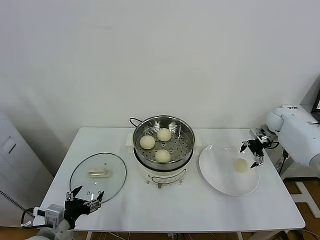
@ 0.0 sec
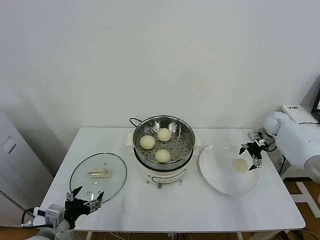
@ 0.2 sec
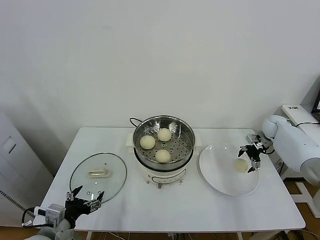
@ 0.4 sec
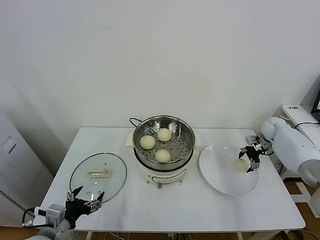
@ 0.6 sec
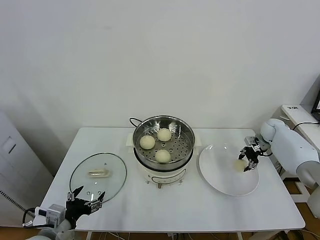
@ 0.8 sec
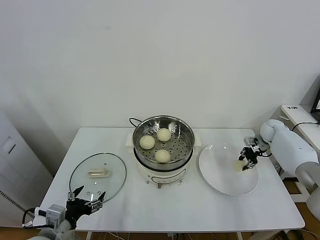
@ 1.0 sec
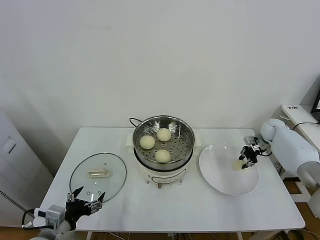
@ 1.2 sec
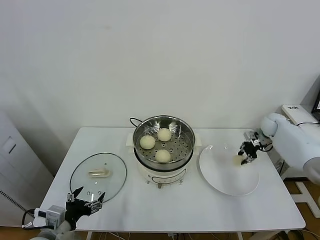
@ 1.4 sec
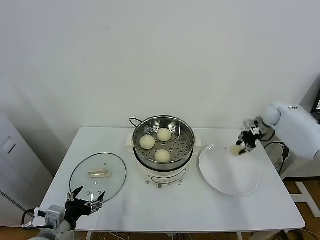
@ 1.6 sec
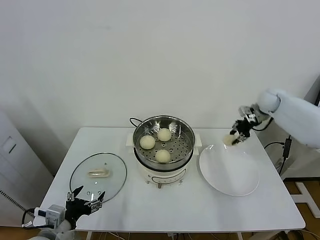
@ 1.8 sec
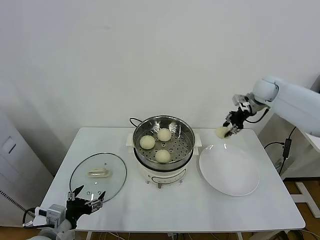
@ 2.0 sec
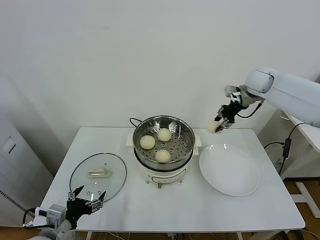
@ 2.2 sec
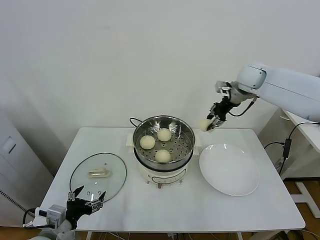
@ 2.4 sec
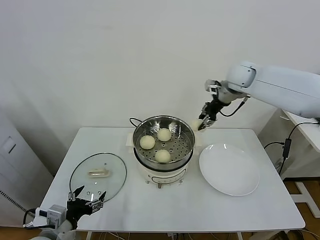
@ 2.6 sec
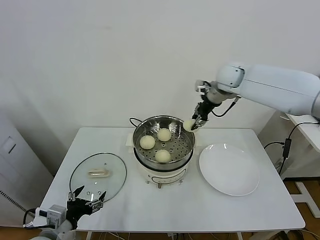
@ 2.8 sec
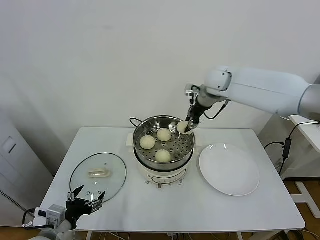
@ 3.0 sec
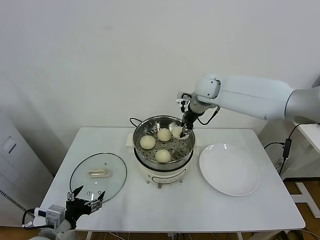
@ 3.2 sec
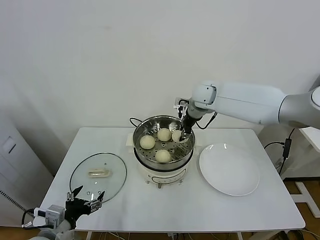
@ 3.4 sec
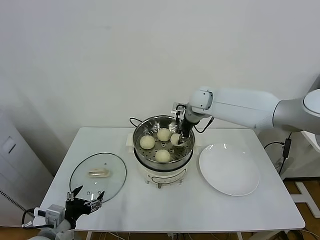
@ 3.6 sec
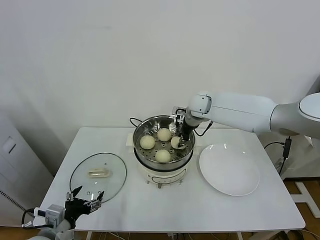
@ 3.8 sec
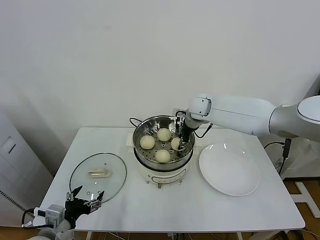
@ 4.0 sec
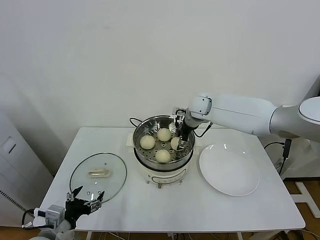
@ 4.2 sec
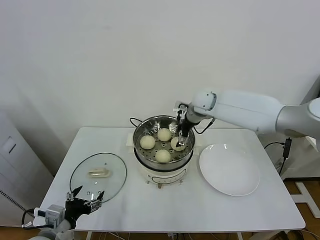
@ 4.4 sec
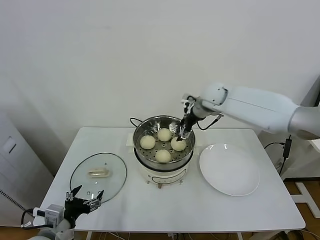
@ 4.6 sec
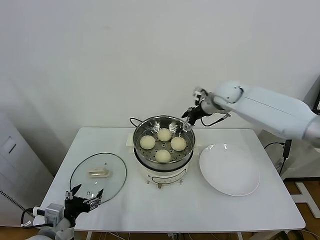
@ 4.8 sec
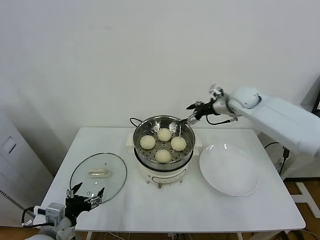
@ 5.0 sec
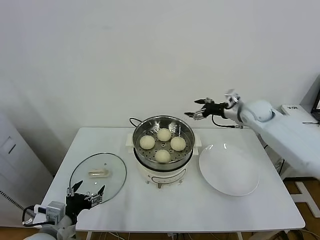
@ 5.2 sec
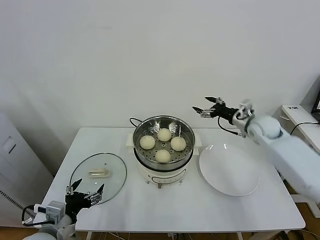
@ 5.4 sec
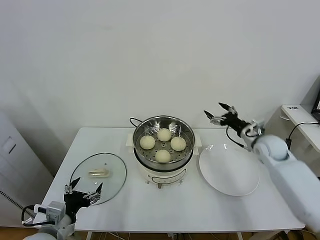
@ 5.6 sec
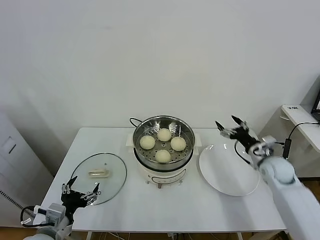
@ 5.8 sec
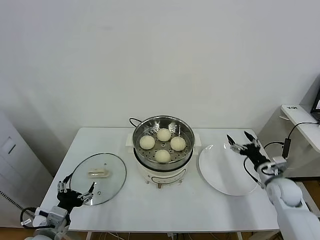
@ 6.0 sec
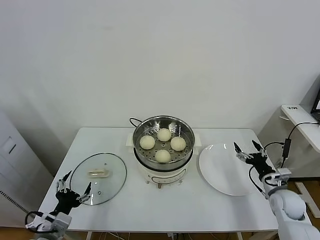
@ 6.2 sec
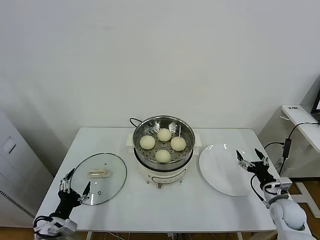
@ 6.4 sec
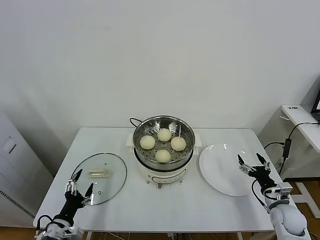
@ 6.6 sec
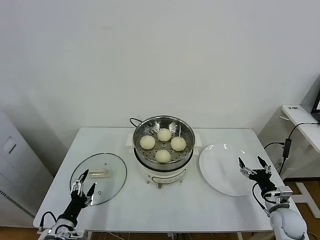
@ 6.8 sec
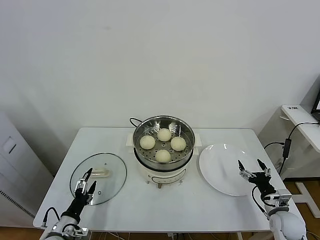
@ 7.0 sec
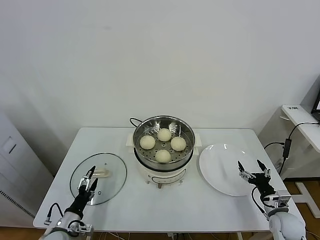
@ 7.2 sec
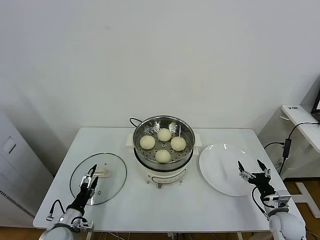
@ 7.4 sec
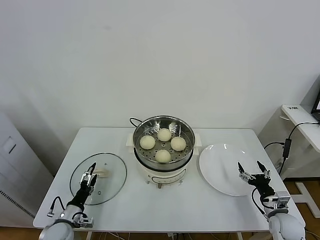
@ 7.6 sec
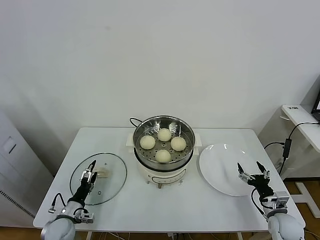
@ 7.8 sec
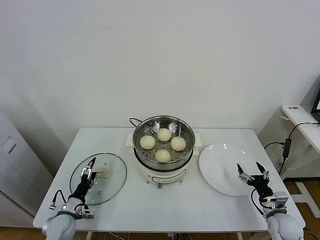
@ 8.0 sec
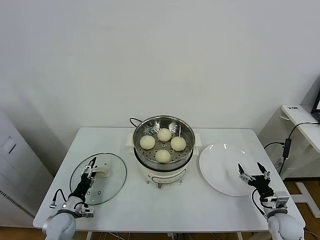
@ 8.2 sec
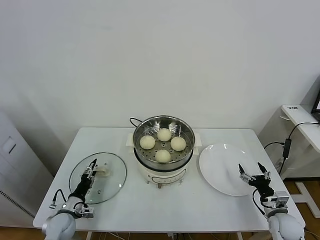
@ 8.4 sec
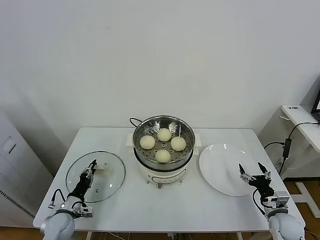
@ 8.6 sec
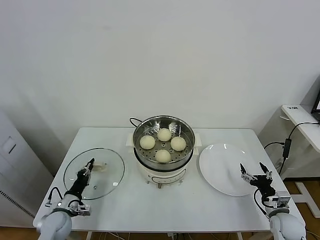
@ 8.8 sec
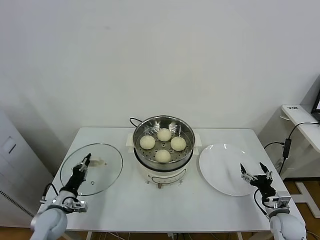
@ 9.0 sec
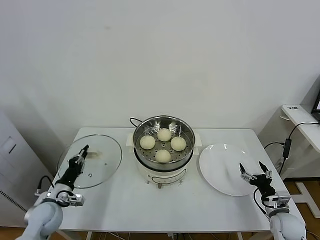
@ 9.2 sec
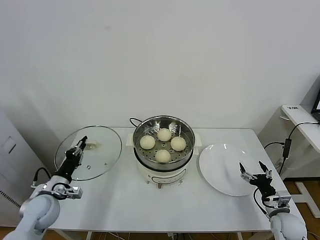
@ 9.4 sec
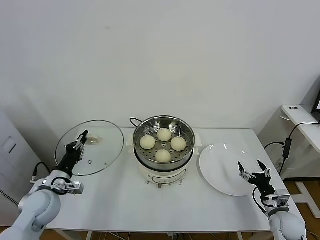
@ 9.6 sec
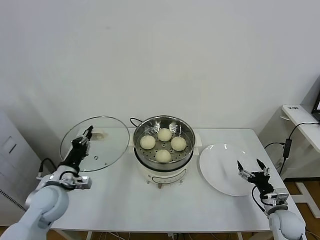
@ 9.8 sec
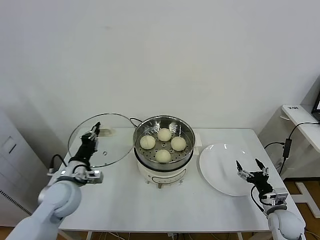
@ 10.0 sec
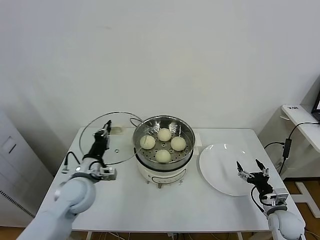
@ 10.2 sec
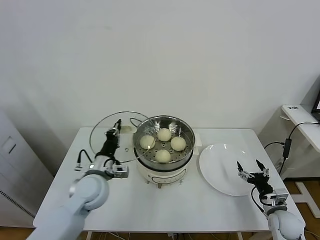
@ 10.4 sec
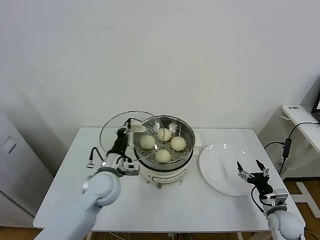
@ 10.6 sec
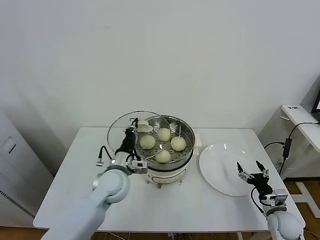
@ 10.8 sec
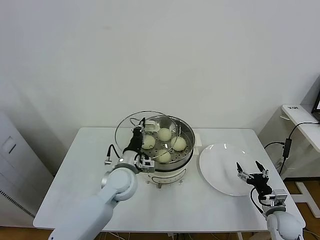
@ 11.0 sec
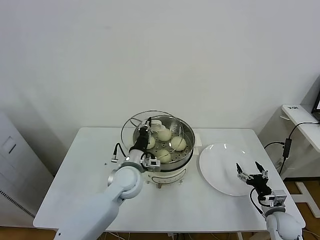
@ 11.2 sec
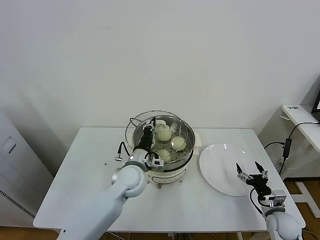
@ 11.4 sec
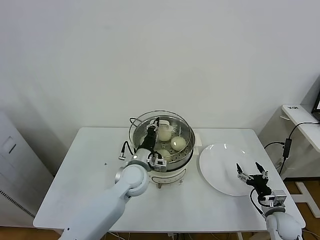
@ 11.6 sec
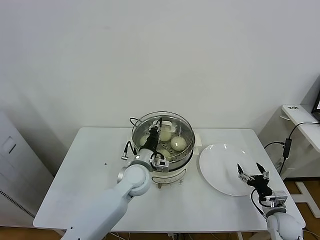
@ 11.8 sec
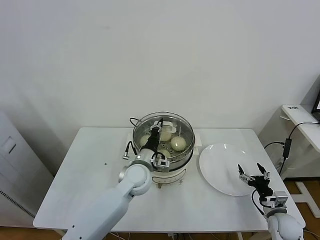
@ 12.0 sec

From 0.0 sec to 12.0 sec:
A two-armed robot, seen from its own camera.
Task of the whole recording: take steamed baozi put them in steamer.
Step, from 1.0 sec to 4.4 sec: Place the baozi on the steamer with right gripper.
Step, from 4.6 sec to 9.0 sec: Grasp the pot lid with left gripper.
From 0.0 sec to 1.6 sec: The right gripper moves some 5 cm downward and comes back, and closes its fingers.
From 1.6 sec to 3.0 sec: The right gripper shifts about 30 cm to the left and upward.
From 3.0 sec to 4.4 sec: The right gripper shifts roughly 10 cm downward, and opens.
From 4.4 sec to 6.0 sec: The right gripper travels to the right, backward and downward by about 40 cm.
From 6.0 sec to 7.6 sec: The right gripper is displaced backward and downward by some 15 cm, while the left gripper travels downward and forward by some 15 cm.
From 7.6 sec to 9.0 sec: The left gripper moves roughly 5 cm, and closes up.
From 9.0 sec to 10.4 sec: The left gripper is displaced upward and to the right by approximately 20 cm.
From 10.4 sec to 12.0 sec: The left gripper shifts roughly 15 cm to the right and forward.

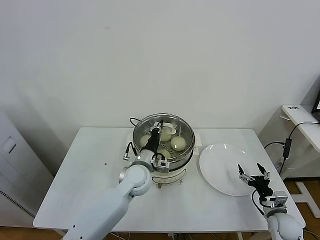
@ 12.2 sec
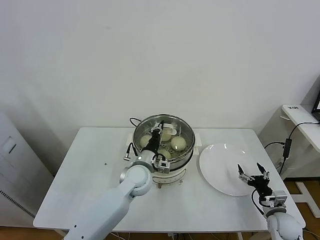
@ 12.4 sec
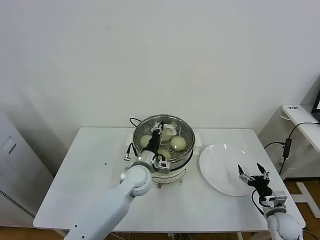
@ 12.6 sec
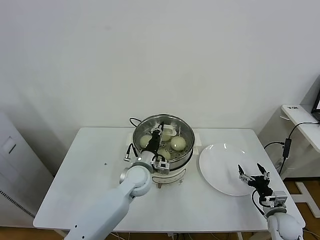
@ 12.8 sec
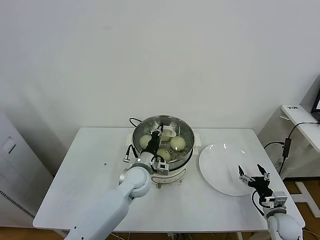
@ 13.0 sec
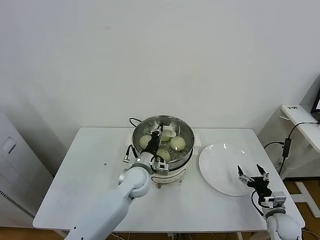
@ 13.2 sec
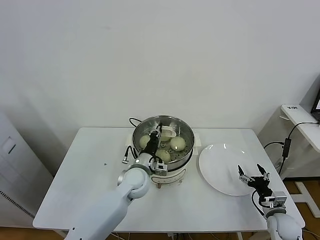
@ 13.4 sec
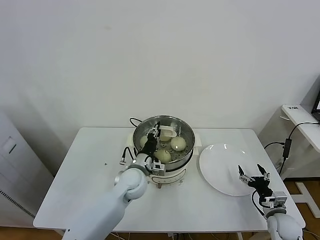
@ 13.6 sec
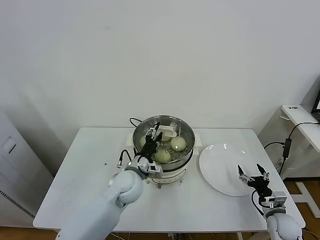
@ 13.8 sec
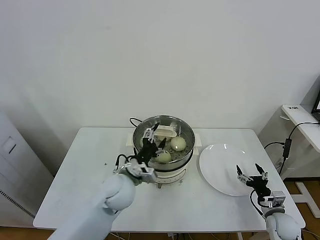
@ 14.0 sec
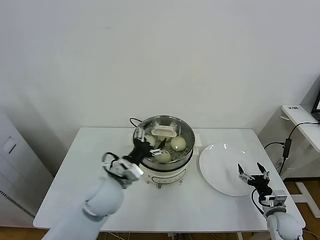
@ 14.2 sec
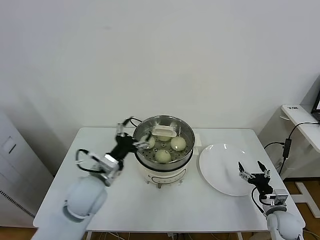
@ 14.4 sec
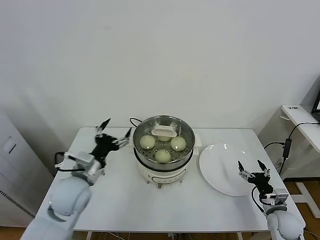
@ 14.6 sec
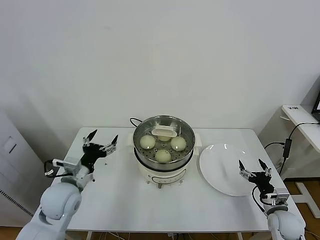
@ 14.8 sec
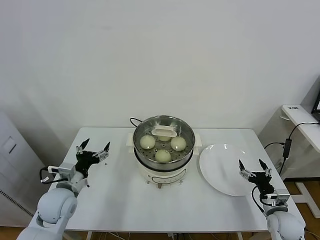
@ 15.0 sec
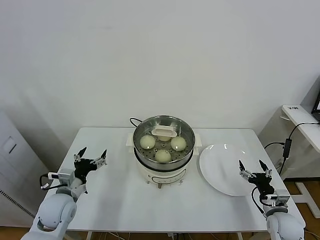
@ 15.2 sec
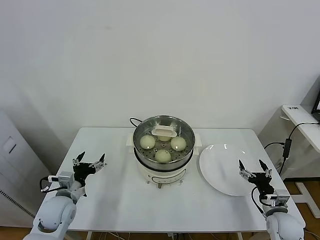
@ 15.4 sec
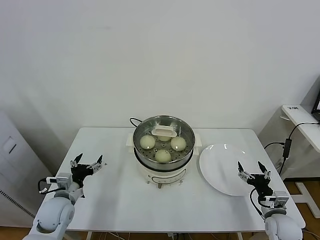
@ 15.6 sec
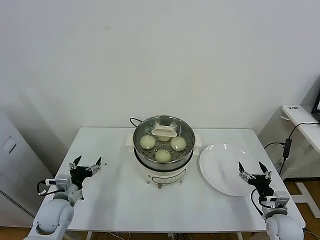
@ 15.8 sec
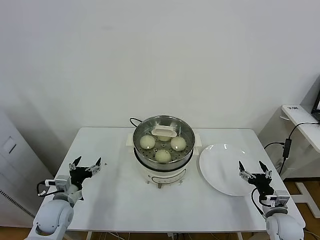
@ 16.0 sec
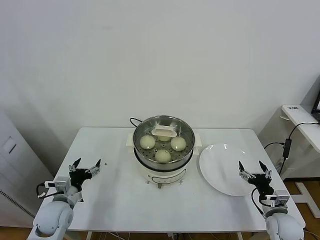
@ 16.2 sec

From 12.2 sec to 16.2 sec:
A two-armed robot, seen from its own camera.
Task of the whole recording: take steamed baozi put them in steamer.
Step, from 12.2 sec to 14.2 sec: Place the pot lid on the steamer with left gripper.
From 12.2 sec to 13.6 sec: The grippers stay close to where they were, moving slightly.
From 13.6 sec to 14.8 sec: The left gripper is displaced to the left and backward by approximately 20 cm, and opens up.
From 14.8 sec to 16.2 sec: The left gripper shifts roughly 10 cm downward and to the left.
